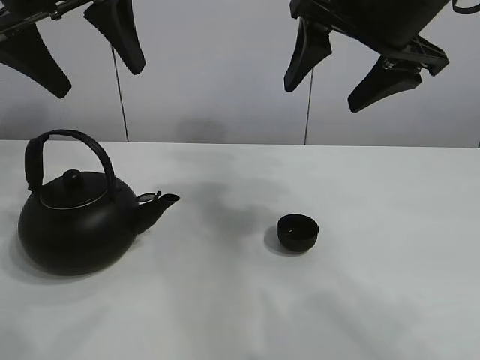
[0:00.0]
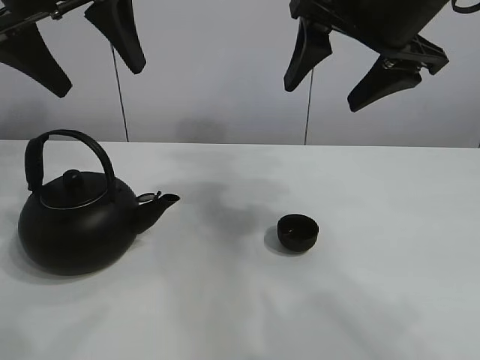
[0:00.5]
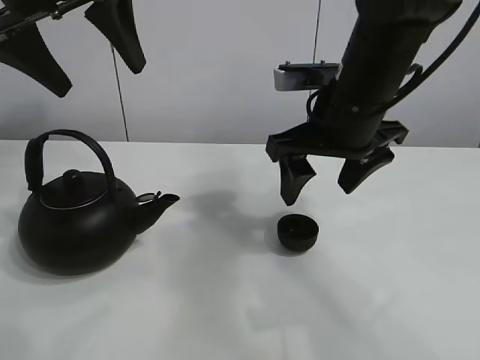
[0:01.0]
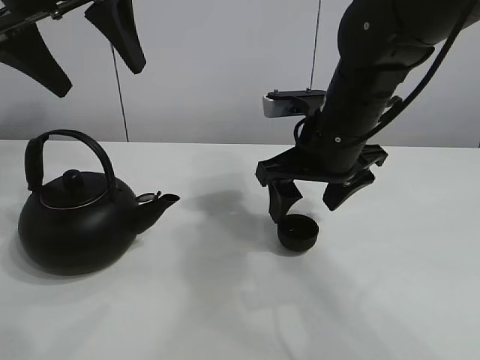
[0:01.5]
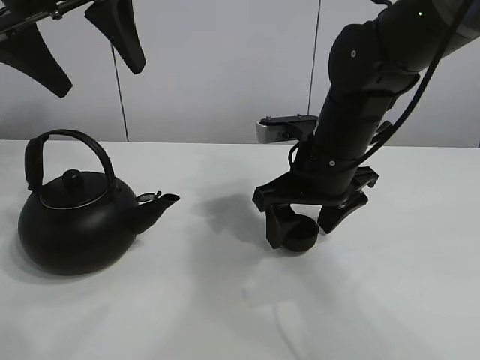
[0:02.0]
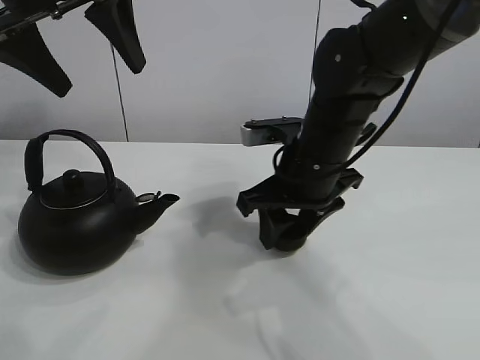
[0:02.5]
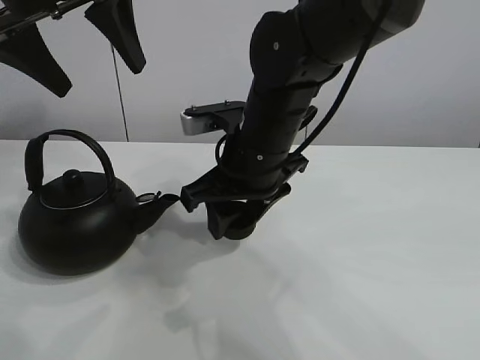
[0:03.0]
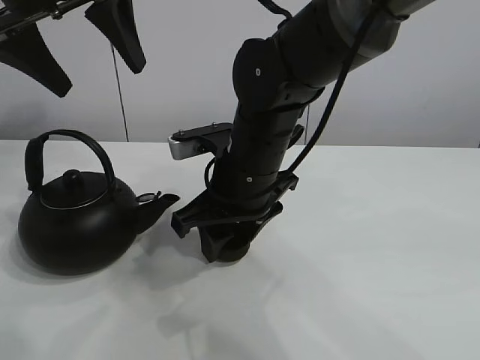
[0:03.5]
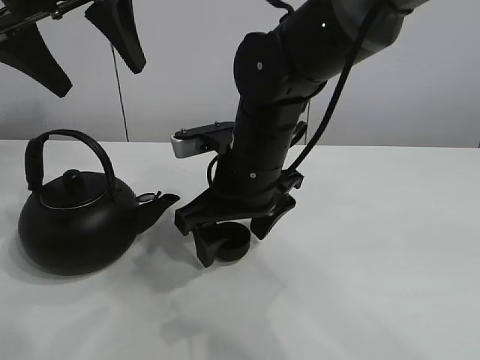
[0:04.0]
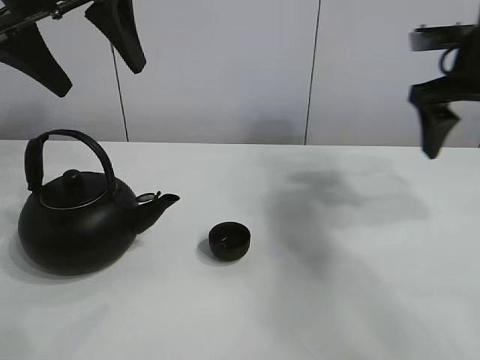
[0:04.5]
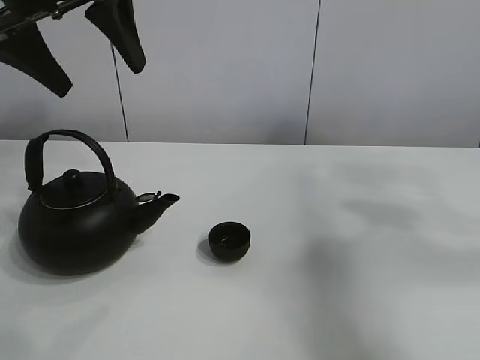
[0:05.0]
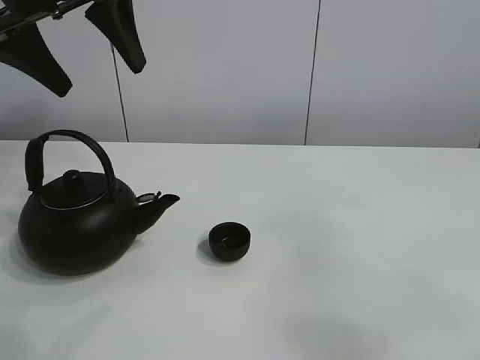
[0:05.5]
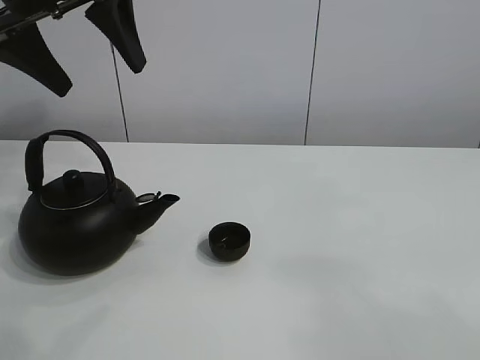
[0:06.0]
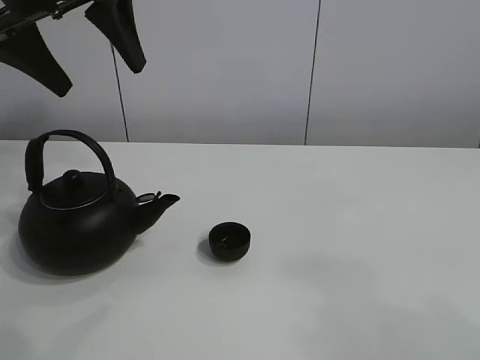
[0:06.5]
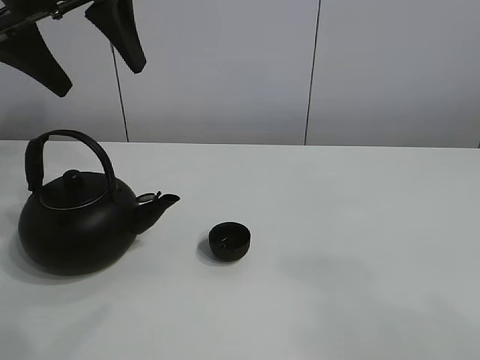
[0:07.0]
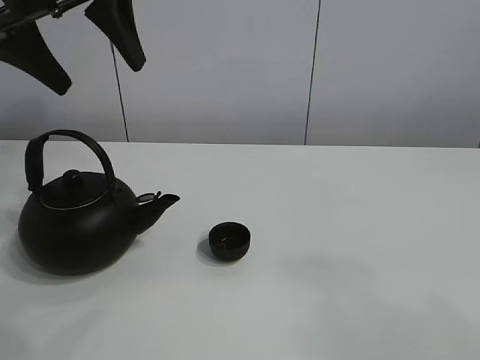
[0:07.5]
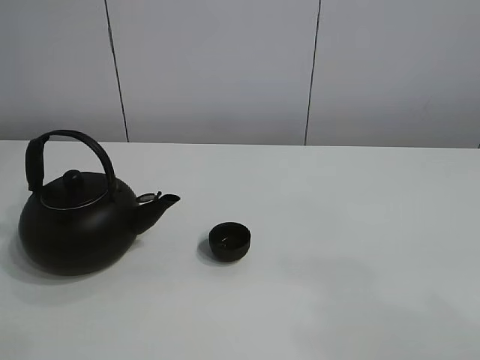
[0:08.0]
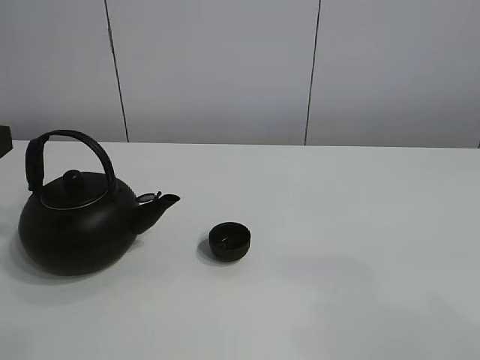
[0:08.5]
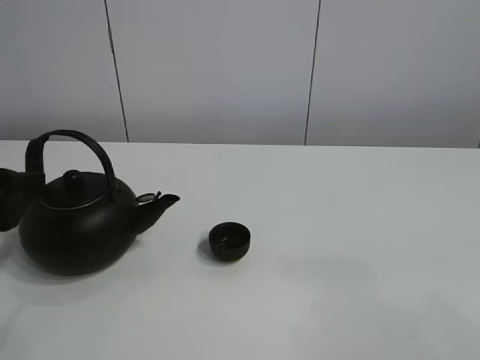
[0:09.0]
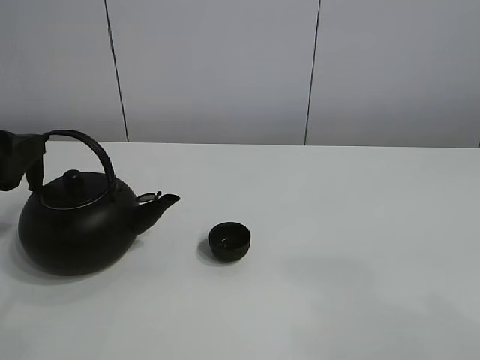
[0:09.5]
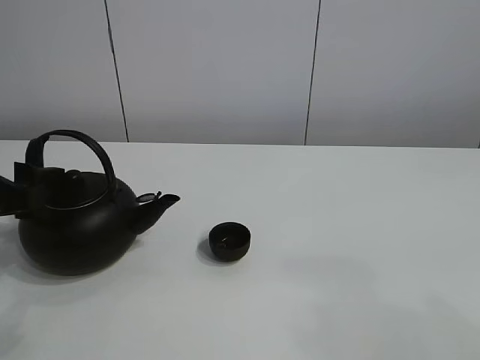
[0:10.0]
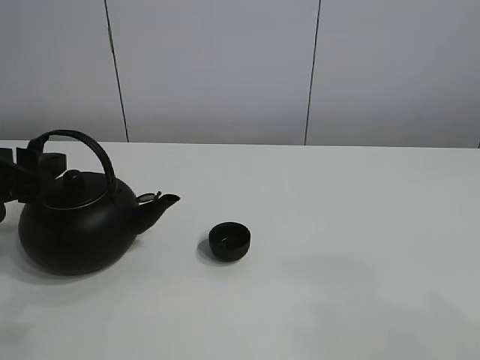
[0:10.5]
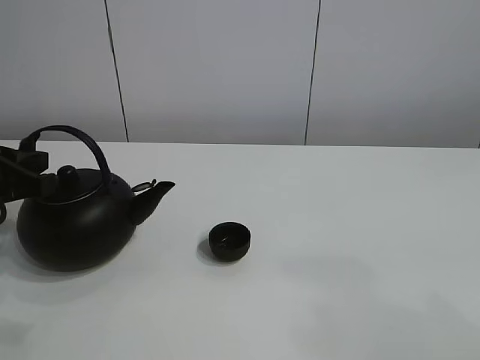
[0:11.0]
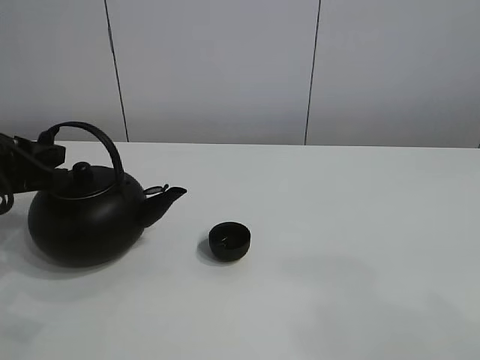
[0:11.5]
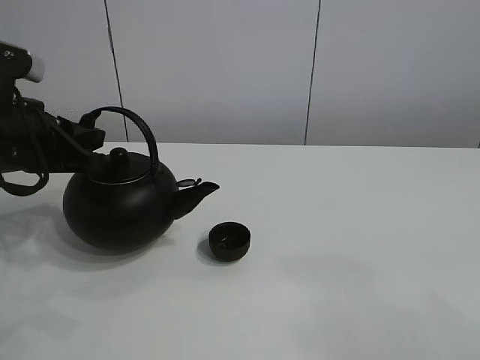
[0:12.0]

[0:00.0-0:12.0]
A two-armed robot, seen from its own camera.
Task of the whole recording: pour tea into the teacup.
Step, 0:00.0 to 0:02.0: Pick up the teacup with the right gripper.
Step, 0:02.5 to 0:03.5: Place the teacup in the center of view with the right gripper.
Step, 0:04.0 to 0:11.0: Pick up the teapot with the left gripper.
0:02.0 to 0:04.0: The right gripper goes roughly 10 cm to the left, and closes and opens again.
0:04.0 to 0:06.0: The right gripper travels backward, to the right and upward by roughly 50 cm.
0:06.0 to 0:08.0: The left gripper shifts about 10 cm backward and to the left.
0:08.0 to 0:10.0: The left gripper shifts about 20 cm downward.
0:10.0 to 0:12.0: The left gripper travels forward by about 5 cm, and closes.

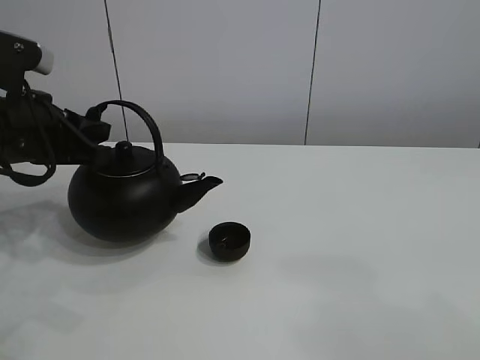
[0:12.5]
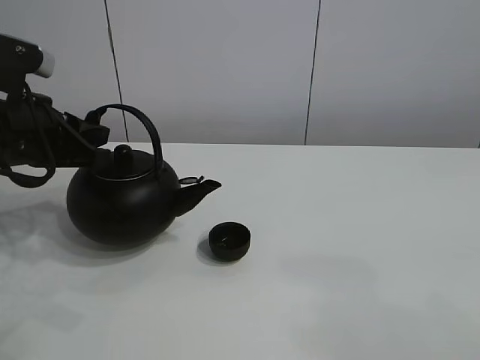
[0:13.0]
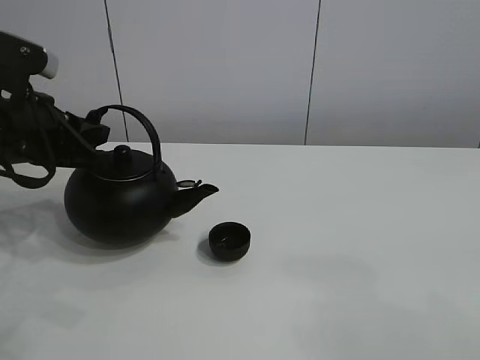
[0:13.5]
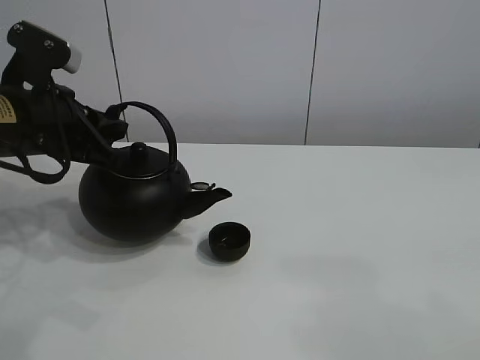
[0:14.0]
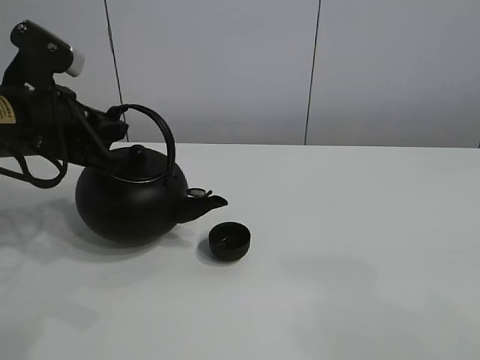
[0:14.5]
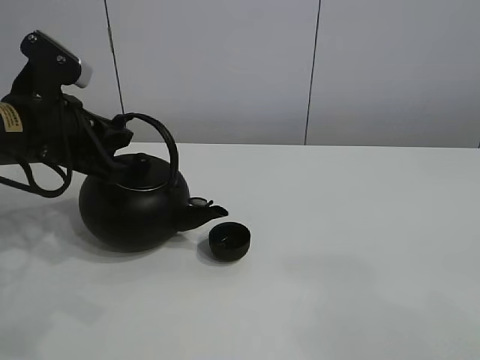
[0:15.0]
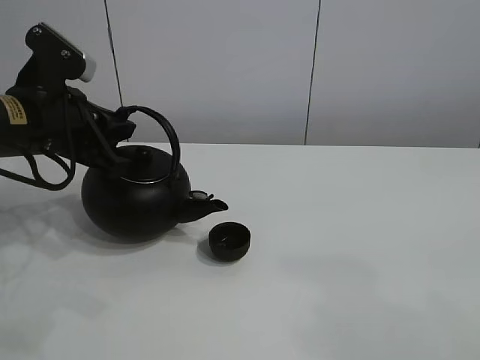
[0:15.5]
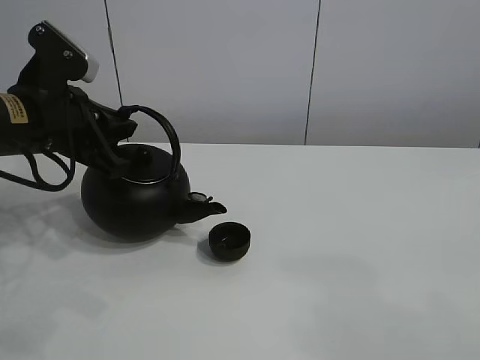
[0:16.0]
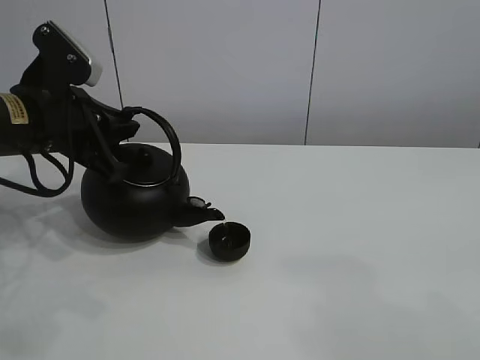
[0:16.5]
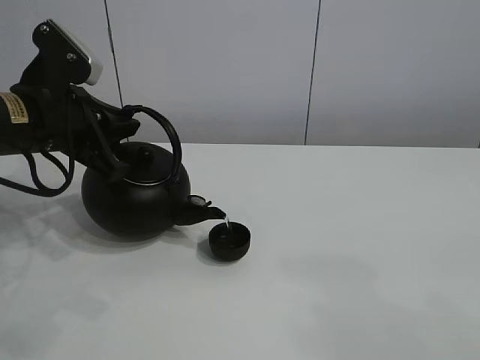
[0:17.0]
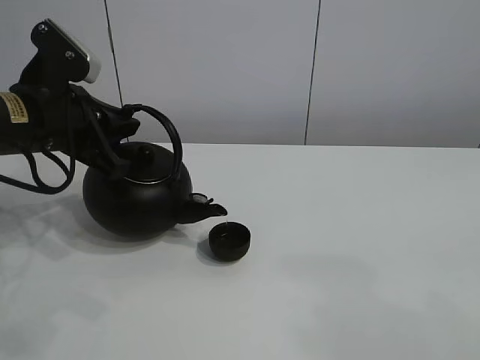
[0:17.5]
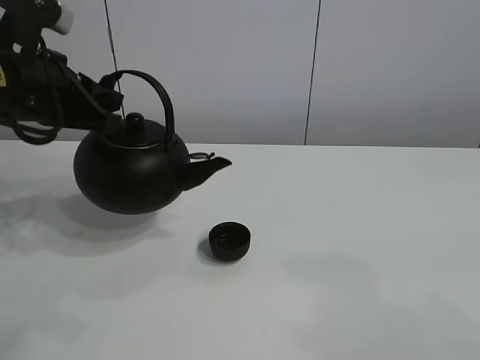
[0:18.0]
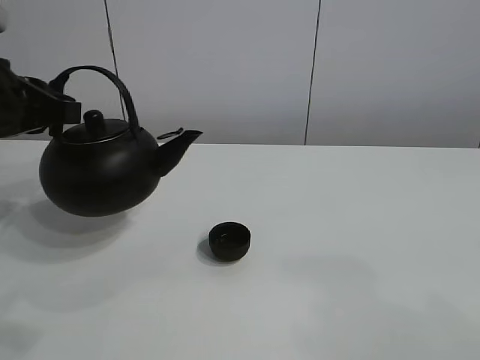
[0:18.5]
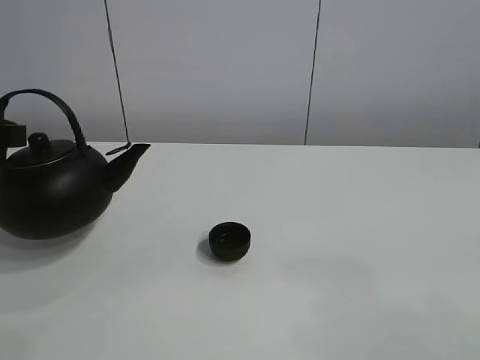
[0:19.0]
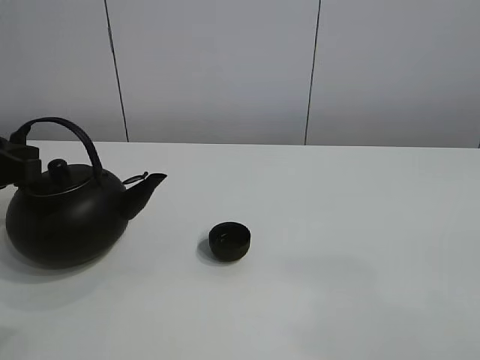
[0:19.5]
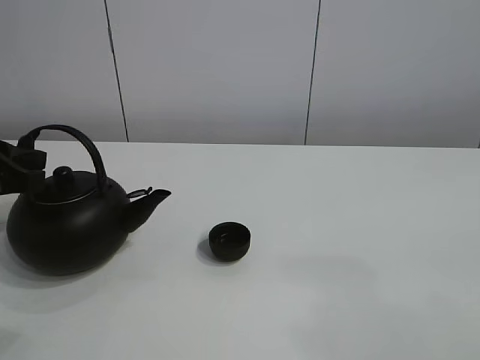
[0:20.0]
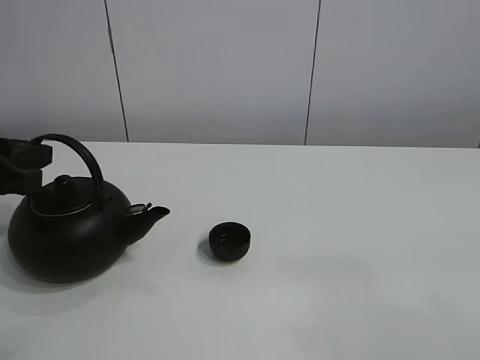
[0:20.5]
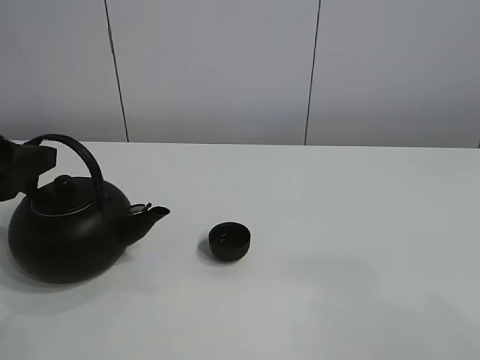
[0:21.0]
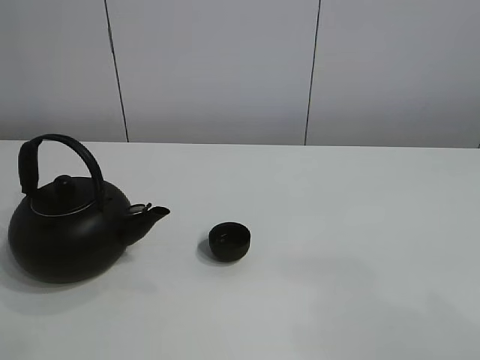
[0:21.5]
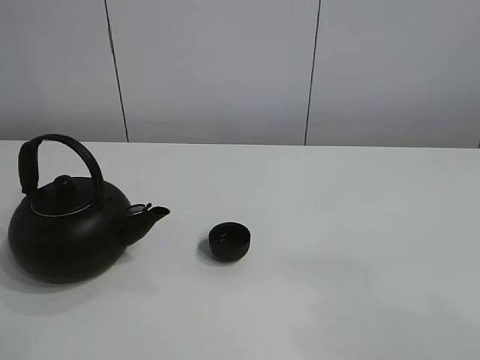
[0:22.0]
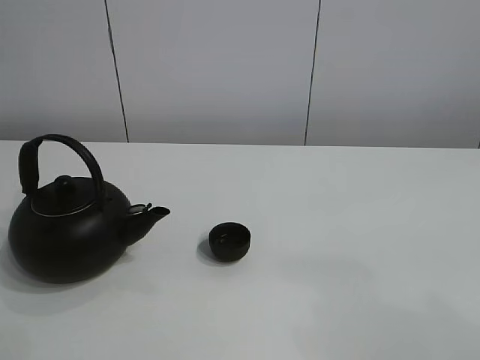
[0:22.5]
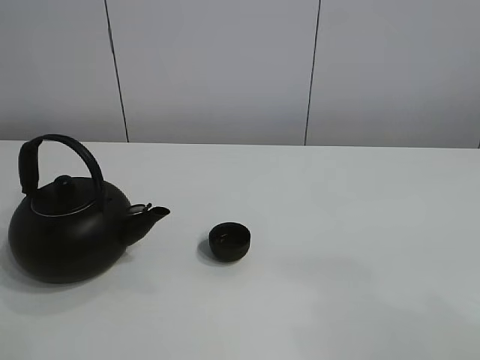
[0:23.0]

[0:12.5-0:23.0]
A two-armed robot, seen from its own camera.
Task of the whole recording: pour tea into the teacup.
Step, 0:12.5 to 0:17.5: Pour tea into the teacup with the left gripper.
0:12.5 to 0:14.5: The grippers make only small movements.
0:14.5 to 0:16.5: The grippers make only small movements.
0:16.5 to 0:19.0: The left gripper is displaced to the left and backward by about 10 cm.
0:19.0 to 0:21.0: The left gripper opens its fingers.
0:21.0 to 0:23.0: The left gripper heads backward and upward, covering some 30 cm.

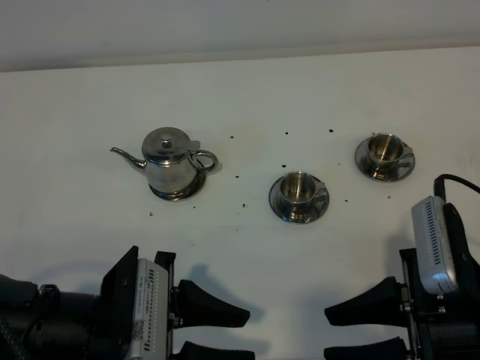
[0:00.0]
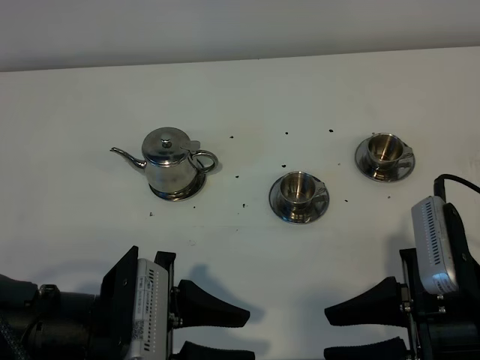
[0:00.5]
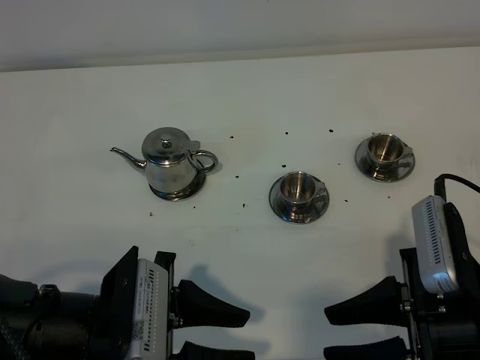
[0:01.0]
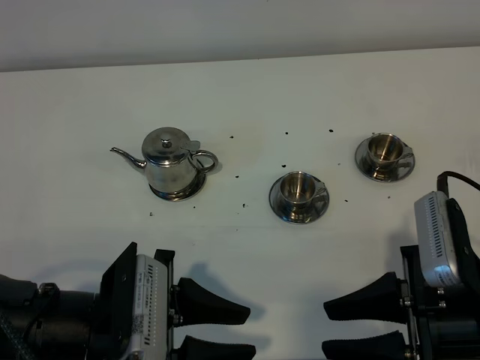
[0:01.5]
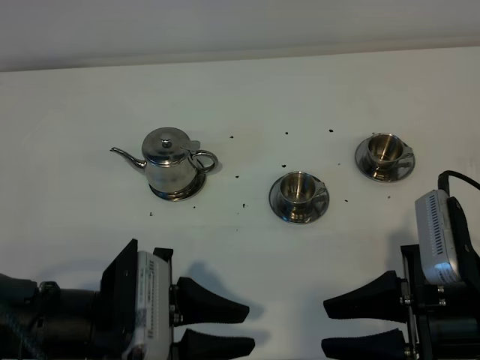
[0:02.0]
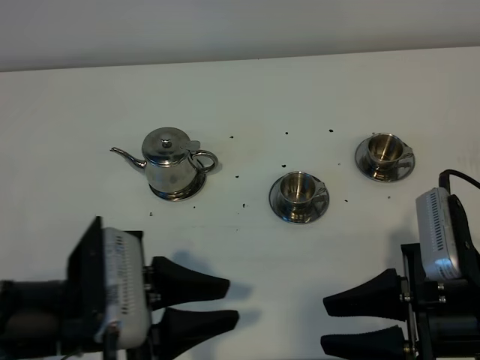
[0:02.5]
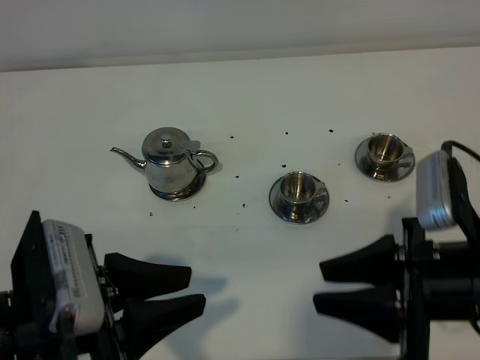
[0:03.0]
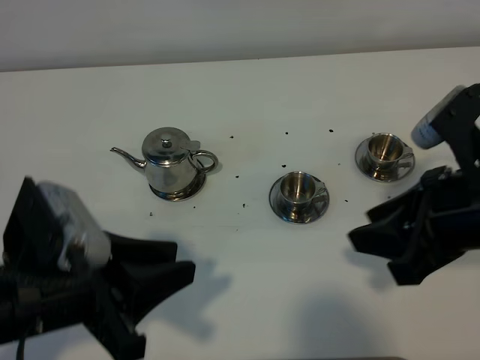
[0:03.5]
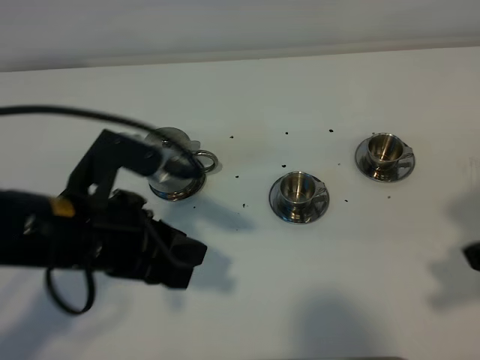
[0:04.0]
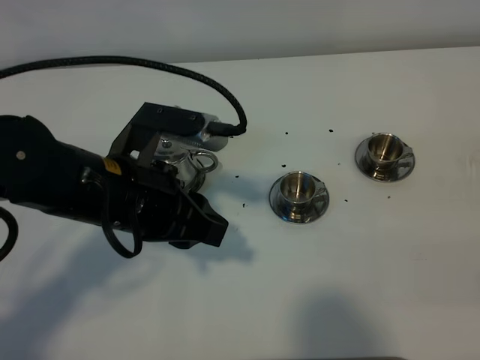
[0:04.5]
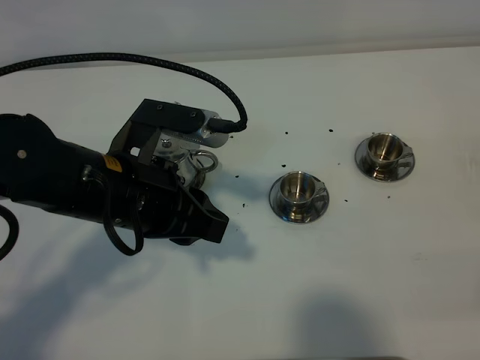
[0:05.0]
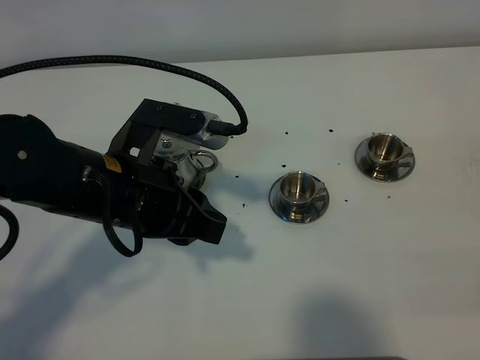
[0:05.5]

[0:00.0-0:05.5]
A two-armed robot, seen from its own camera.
Task of the whole recording: grasp the stainless steel teapot and pour the tea into the two stainless steel teacups one by one, put the stainless steel teapot back in its original place.
0:00.0 to 0:02.0: The two grippers keep their place.
0:02.0 to 0:03.5: The right gripper heads upward and forward, covering some 10 cm, while the left gripper is displaced upward by roughly 10 cm.
0:03.5 to 0:05.5: The left gripper travels forward and to the right by roughly 10 cm. Meanwhile the right gripper travels backward and to the right by approximately 20 cm, and closes its fingers.
